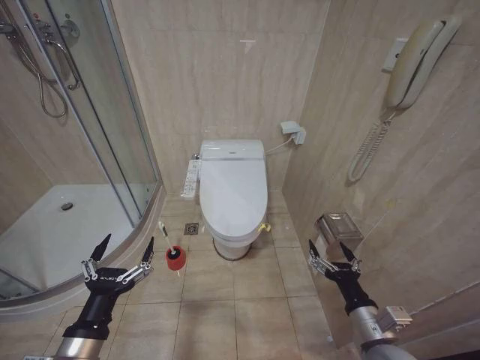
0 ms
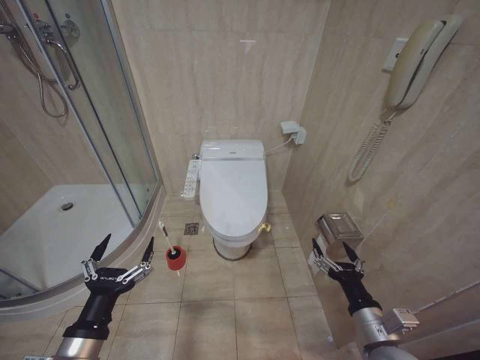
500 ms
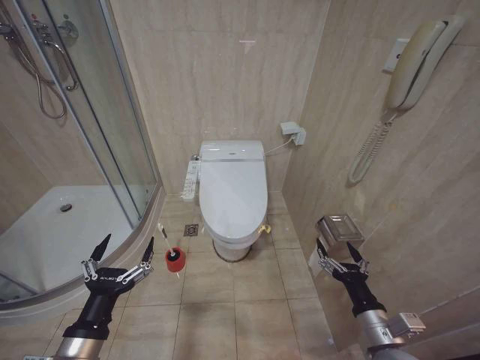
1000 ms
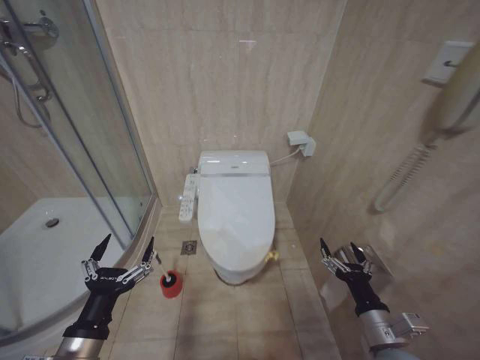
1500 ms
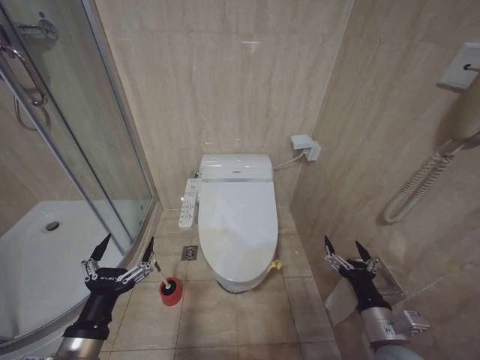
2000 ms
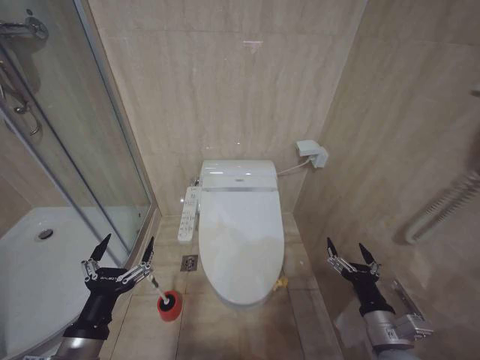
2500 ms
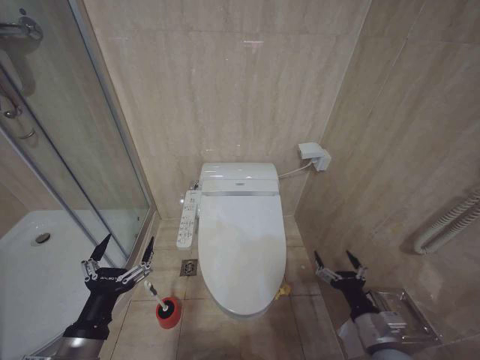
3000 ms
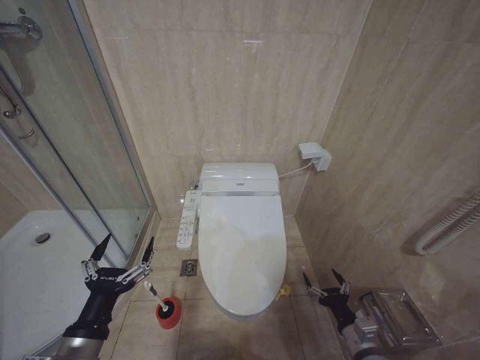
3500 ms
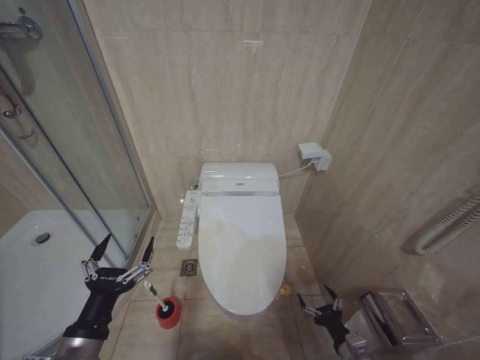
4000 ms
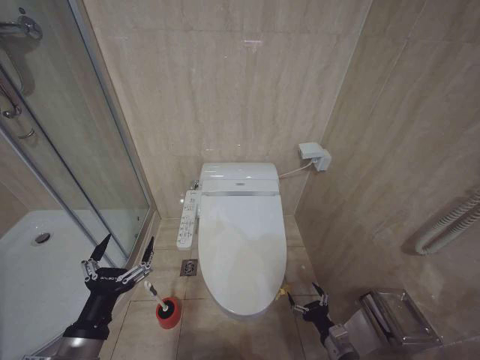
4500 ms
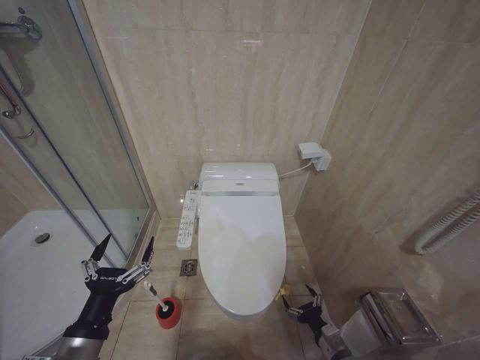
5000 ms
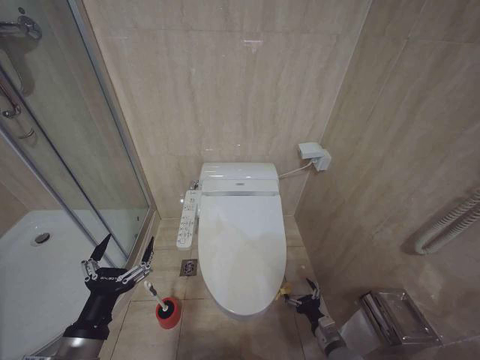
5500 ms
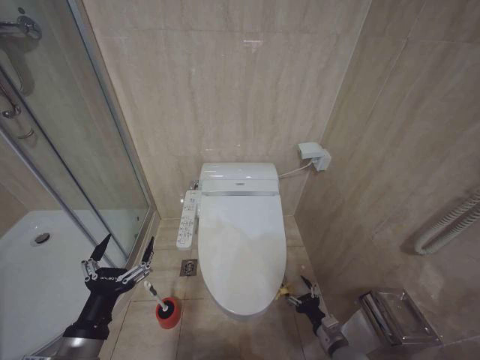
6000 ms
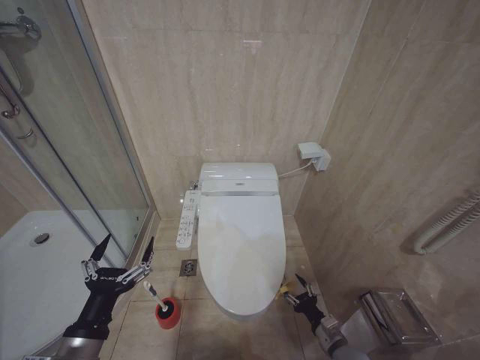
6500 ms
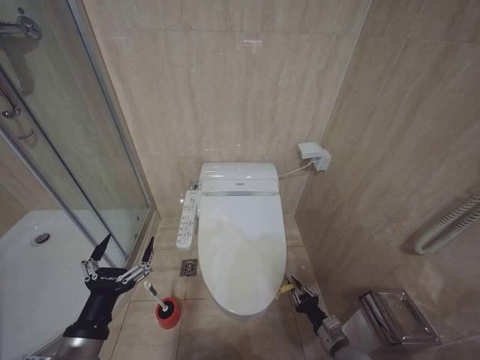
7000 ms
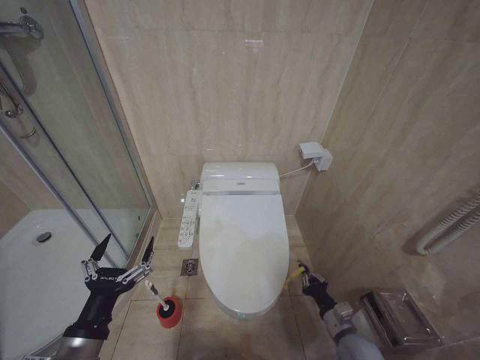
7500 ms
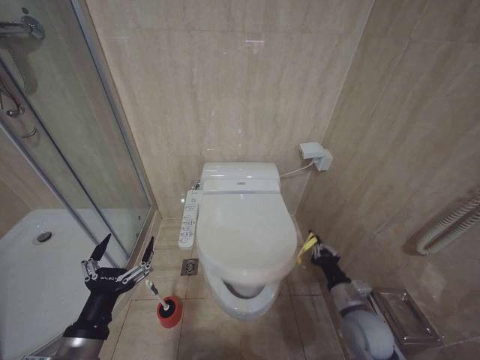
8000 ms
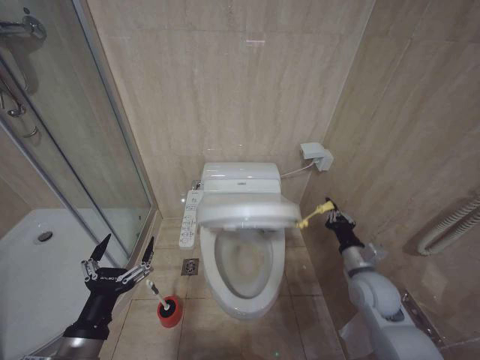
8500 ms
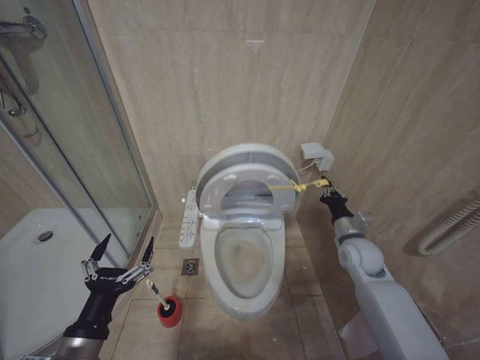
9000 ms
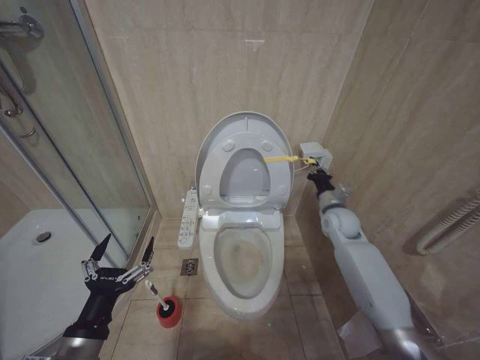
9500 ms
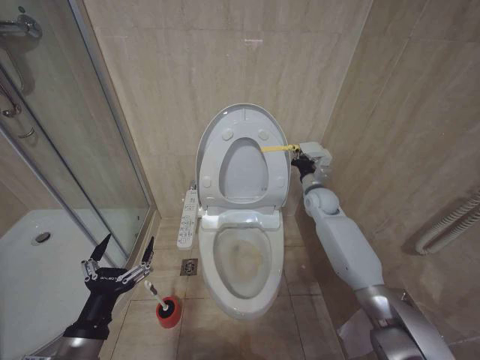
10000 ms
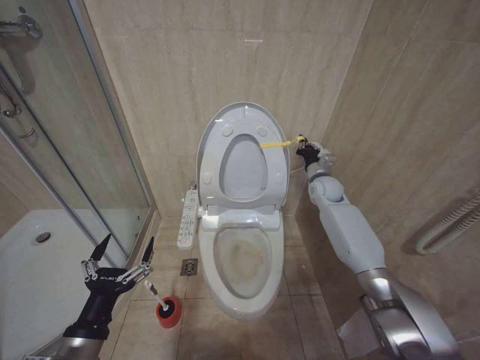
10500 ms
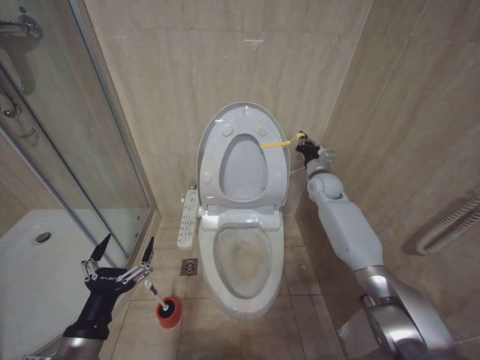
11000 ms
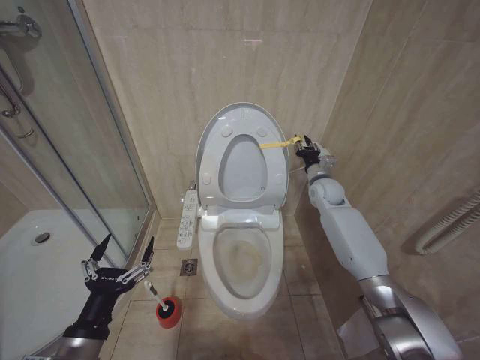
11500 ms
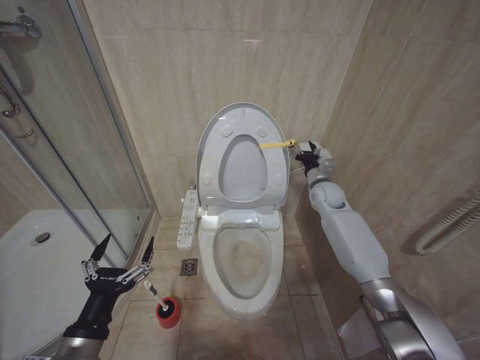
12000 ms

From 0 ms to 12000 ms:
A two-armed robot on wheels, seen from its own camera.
Task of the whole recording: Open the toilet lid, clean the toilet bowl with a toilet brush, close the toilet lid, and flush.
From 2000 ms to 4000 ms: The right gripper is displaced downward by about 15 cm.
From 4000 ms to 6000 ms: The right gripper moves forward and downward, some 10 cm.
From 6000 ms to 8000 ms: The right gripper travels upward by about 10 cm, and closes up.
From 8000 ms to 10000 ms: The right gripper is displaced forward and upward by about 35 cm.
From 10000 ms to 12000 ms: The right gripper opens up.

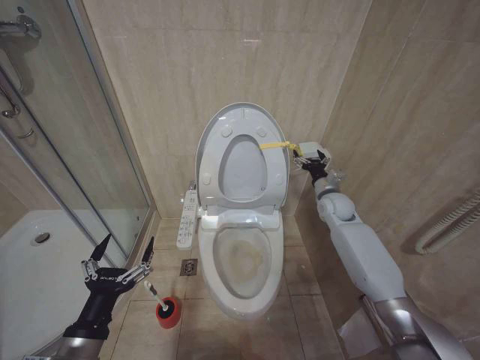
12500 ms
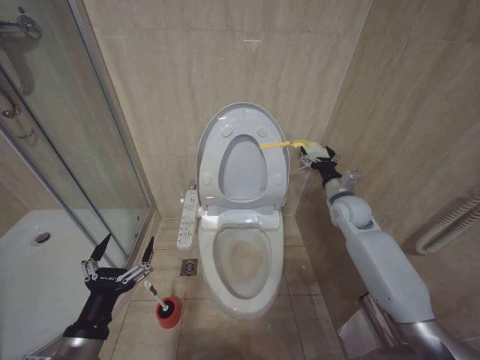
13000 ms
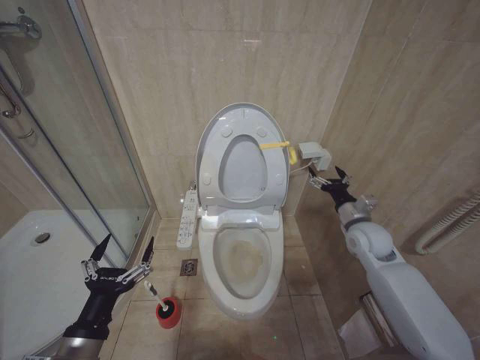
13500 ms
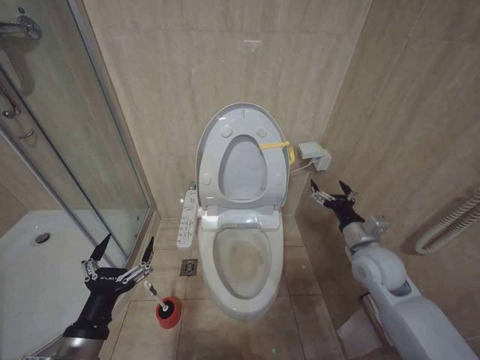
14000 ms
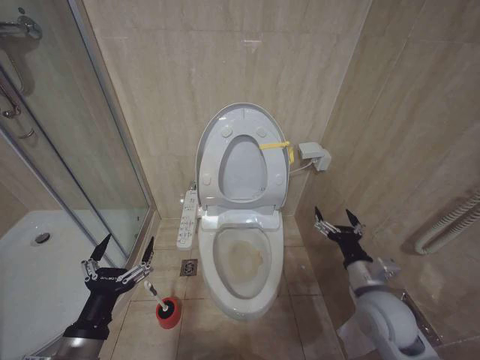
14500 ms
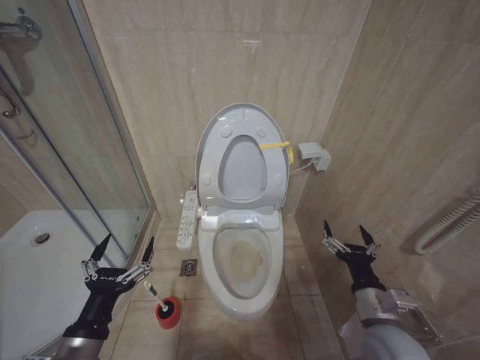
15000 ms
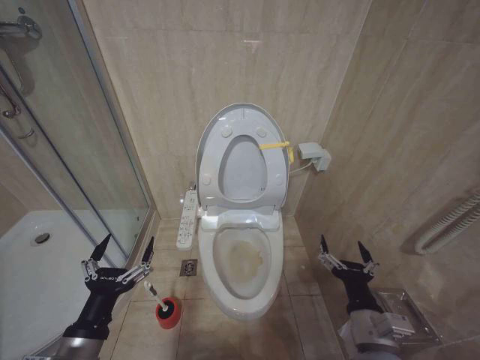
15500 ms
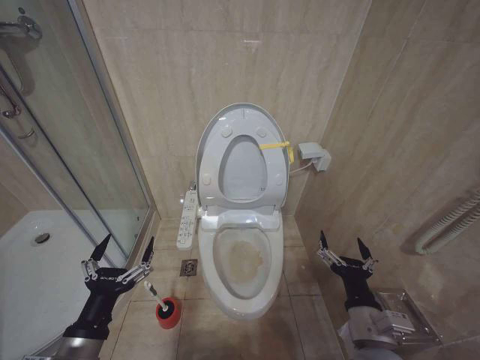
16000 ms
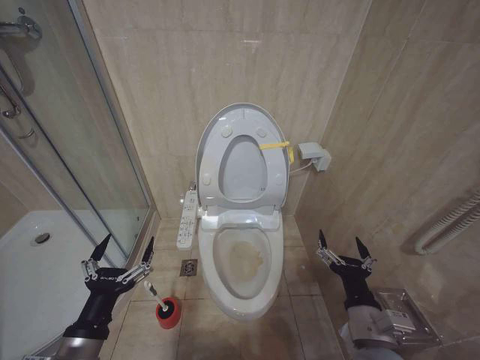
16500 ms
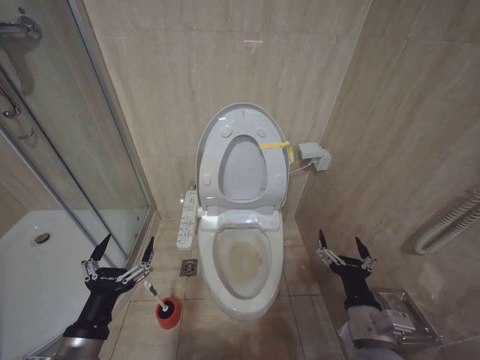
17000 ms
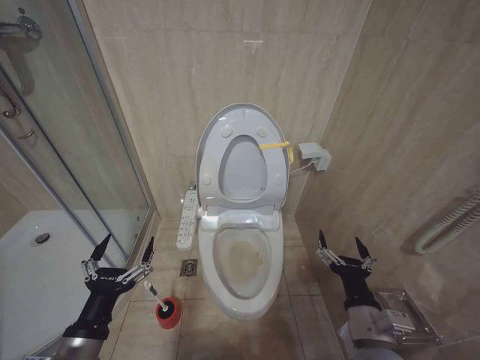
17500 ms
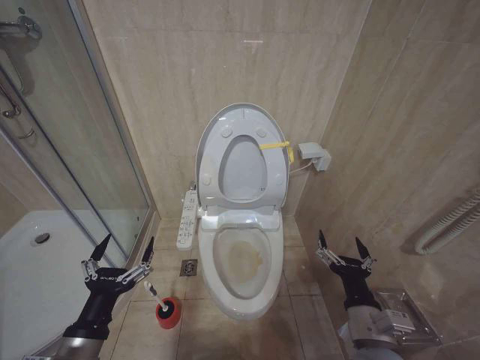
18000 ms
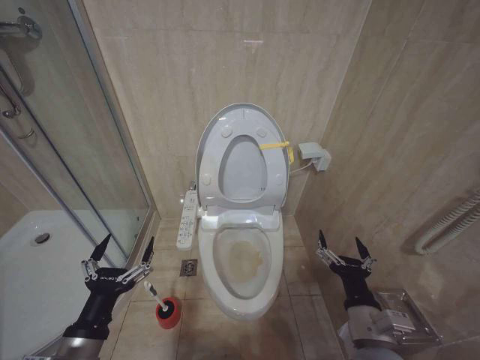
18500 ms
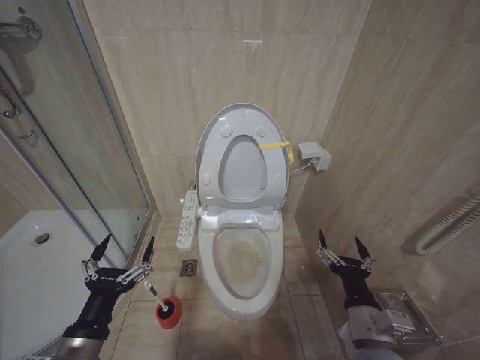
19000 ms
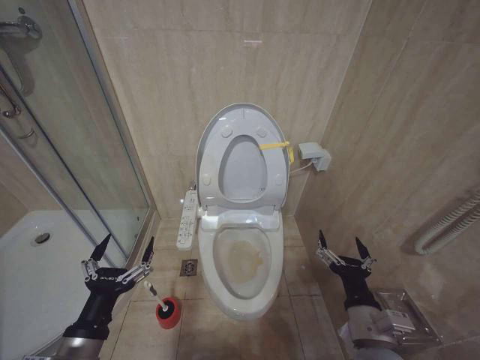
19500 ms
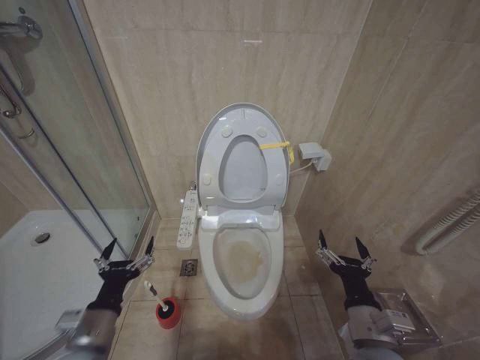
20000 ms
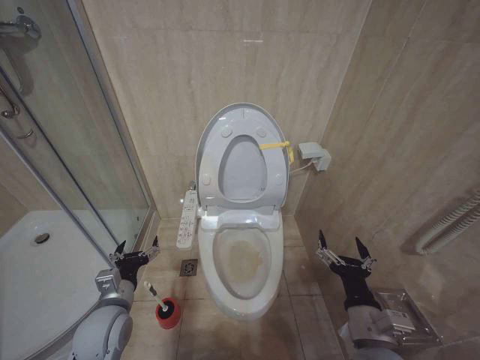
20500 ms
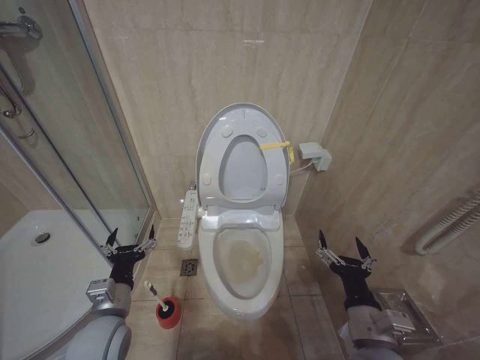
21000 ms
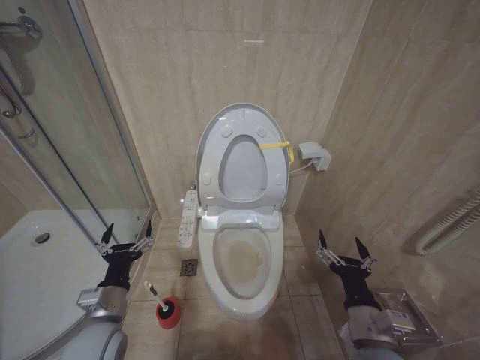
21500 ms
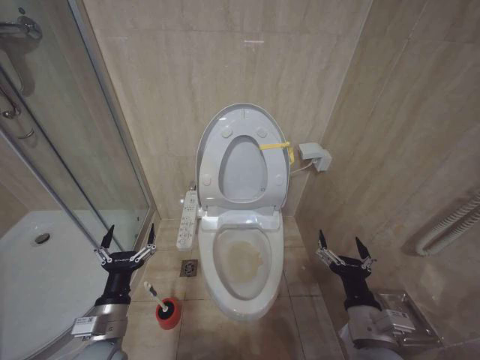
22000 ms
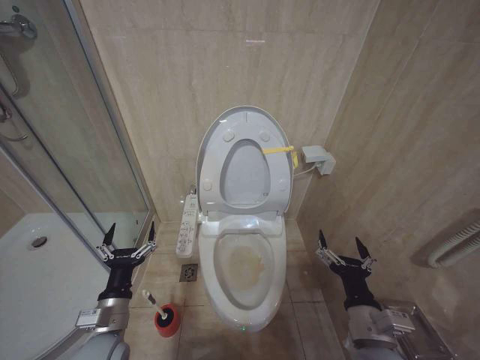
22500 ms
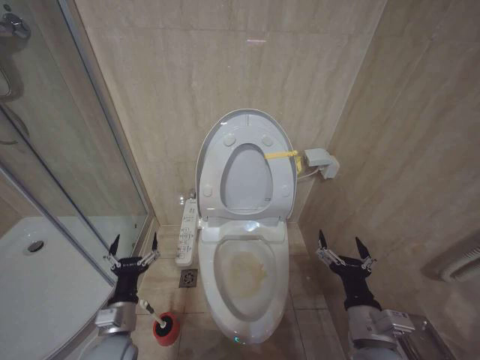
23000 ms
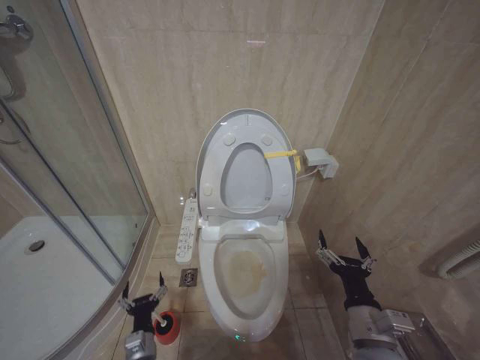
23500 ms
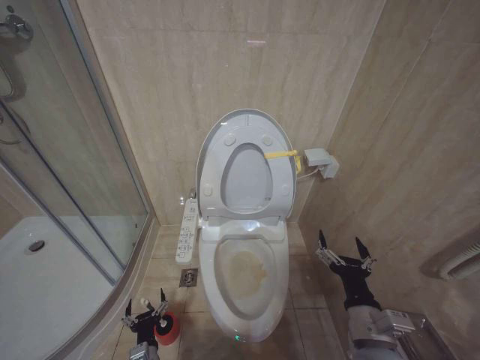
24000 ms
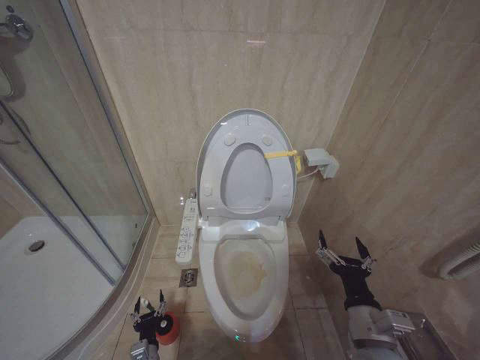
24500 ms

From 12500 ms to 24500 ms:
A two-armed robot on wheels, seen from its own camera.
Task of the whole recording: Open the toilet lid, clean the toilet bowl with a toilet brush, close the toilet lid, and flush.
From 12500 ms to 14500 ms: The right gripper moves backward, about 25 cm.
From 14500 ms to 16500 ms: The right gripper moves backward and to the left, roughly 10 cm.
From 16500 ms to 18500 ms: The two grippers keep their place.
From 18500 ms to 20500 ms: The left gripper heads forward and downward, covering some 15 cm.
From 22500 ms to 24500 ms: The left gripper shifts about 25 cm downward.

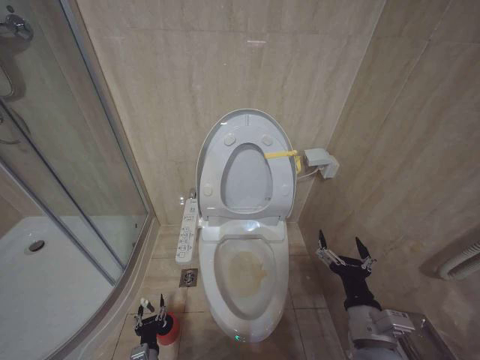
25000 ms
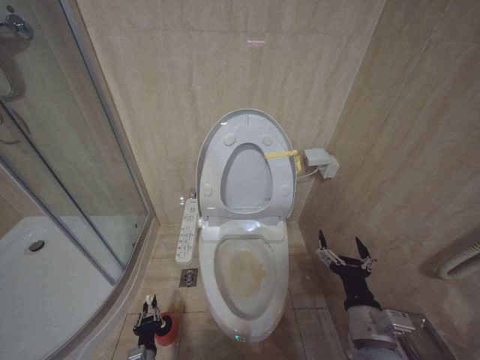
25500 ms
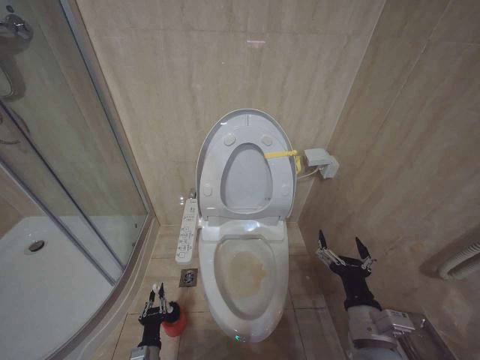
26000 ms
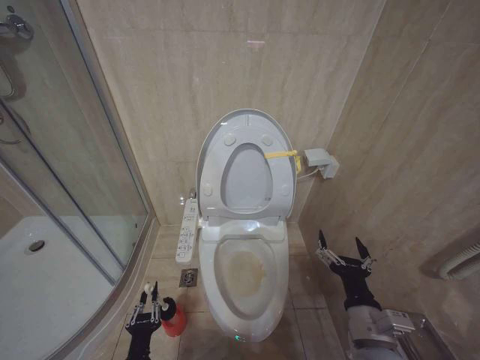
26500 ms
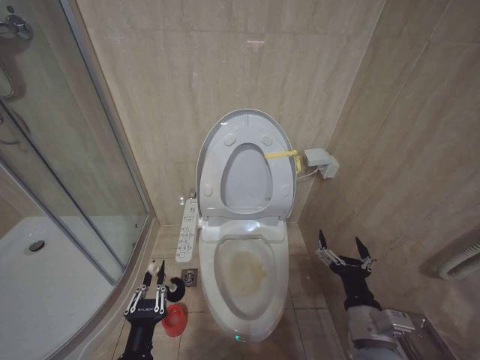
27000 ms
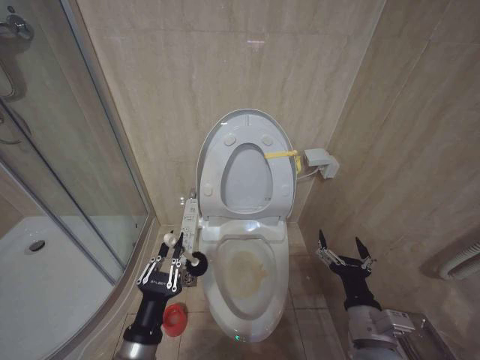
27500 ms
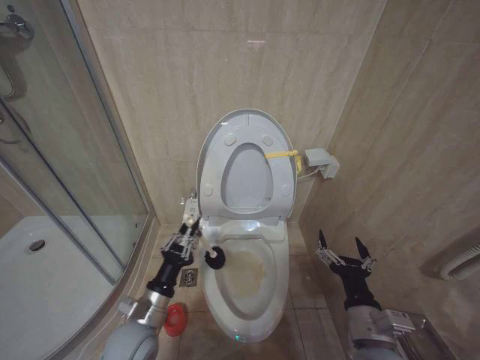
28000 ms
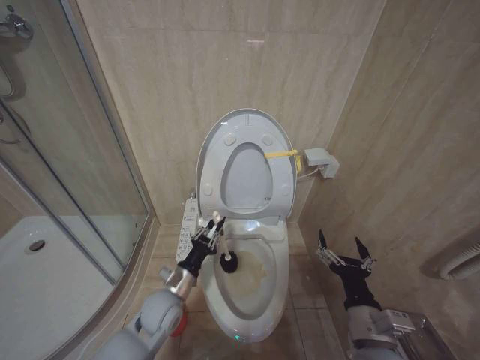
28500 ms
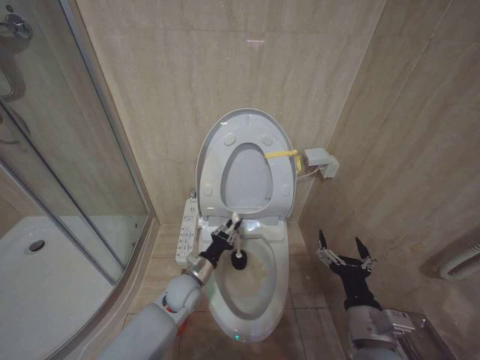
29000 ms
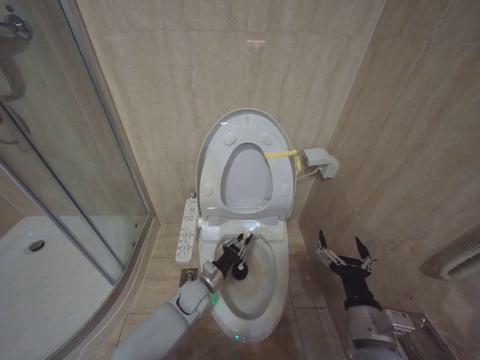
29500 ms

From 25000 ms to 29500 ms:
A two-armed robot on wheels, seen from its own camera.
Task of the whole recording: Open the toilet lid, clean the toilet bowl with a toilet brush, close the toilet lid, and flush.
From 25000 ms to 27000 ms: The left gripper heads upward and backward, covering approximately 20 cm, and closes.
From 27000 ms to 29500 ms: The left gripper moves forward, roughly 25 cm.
